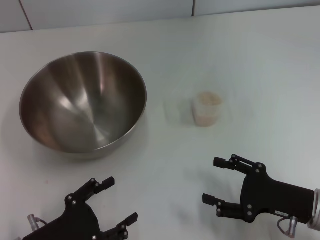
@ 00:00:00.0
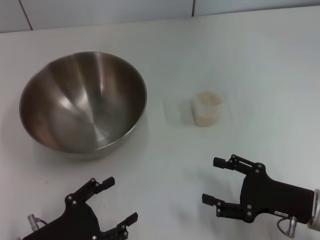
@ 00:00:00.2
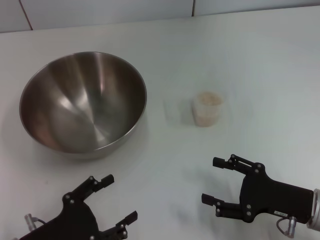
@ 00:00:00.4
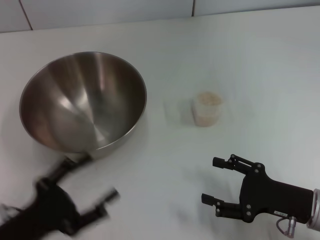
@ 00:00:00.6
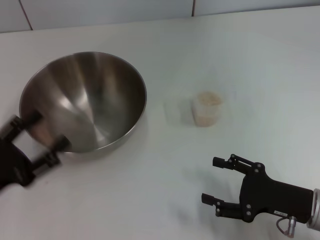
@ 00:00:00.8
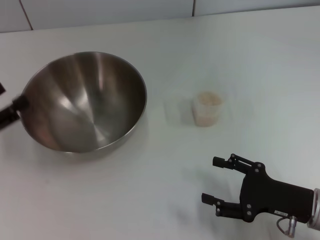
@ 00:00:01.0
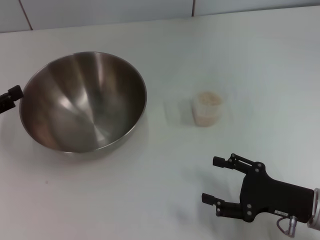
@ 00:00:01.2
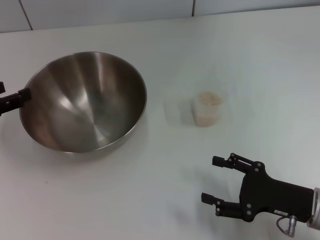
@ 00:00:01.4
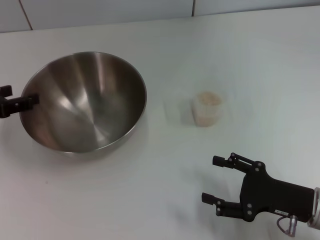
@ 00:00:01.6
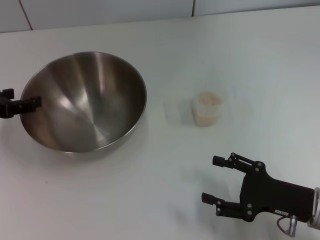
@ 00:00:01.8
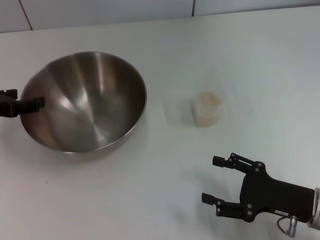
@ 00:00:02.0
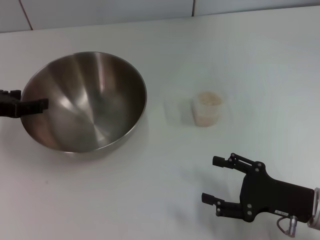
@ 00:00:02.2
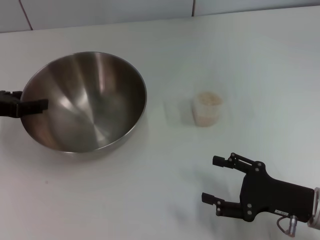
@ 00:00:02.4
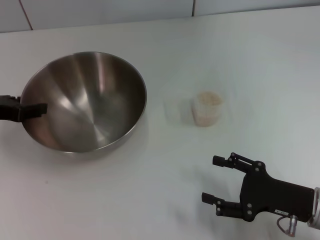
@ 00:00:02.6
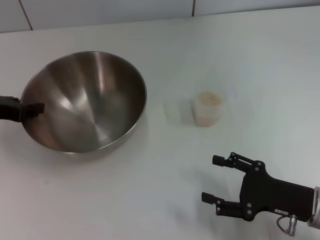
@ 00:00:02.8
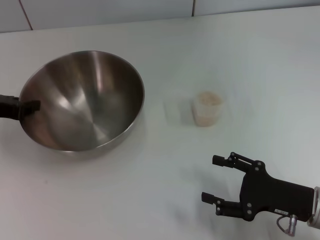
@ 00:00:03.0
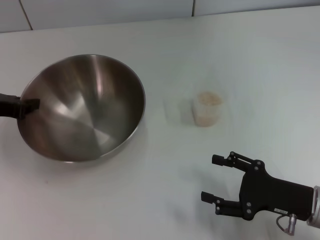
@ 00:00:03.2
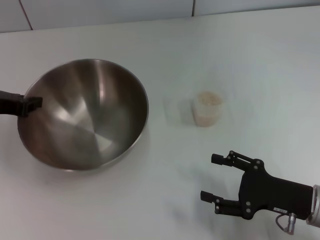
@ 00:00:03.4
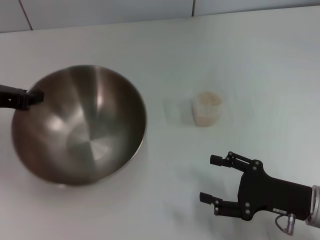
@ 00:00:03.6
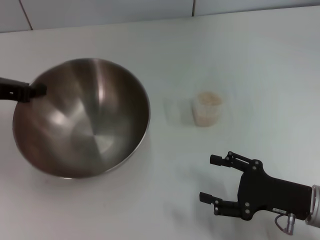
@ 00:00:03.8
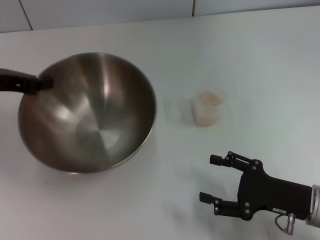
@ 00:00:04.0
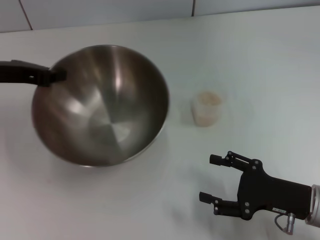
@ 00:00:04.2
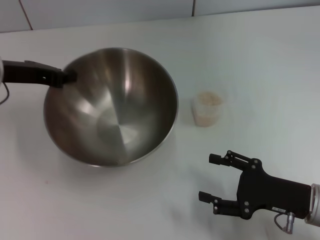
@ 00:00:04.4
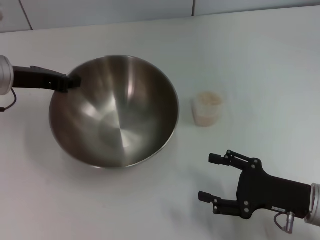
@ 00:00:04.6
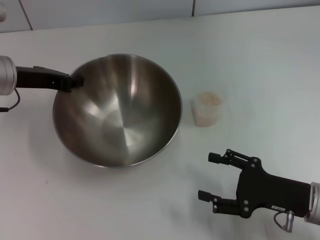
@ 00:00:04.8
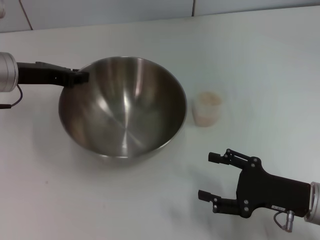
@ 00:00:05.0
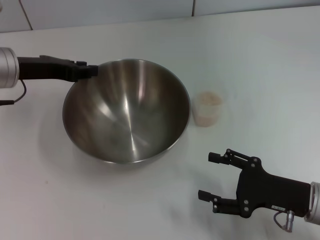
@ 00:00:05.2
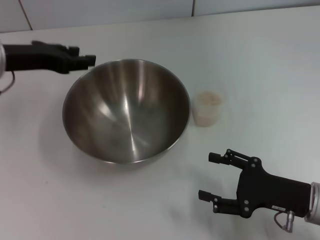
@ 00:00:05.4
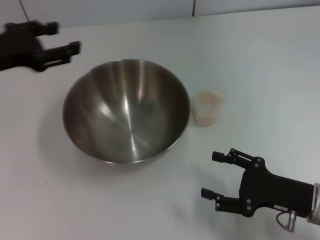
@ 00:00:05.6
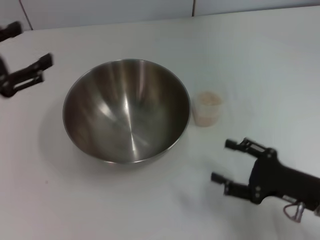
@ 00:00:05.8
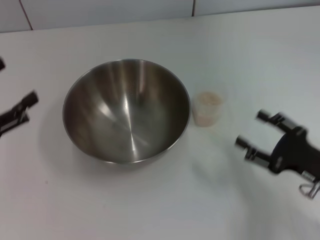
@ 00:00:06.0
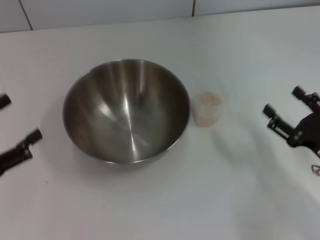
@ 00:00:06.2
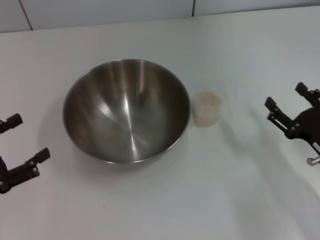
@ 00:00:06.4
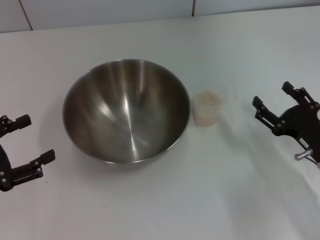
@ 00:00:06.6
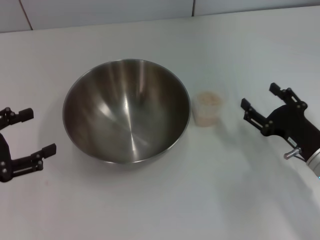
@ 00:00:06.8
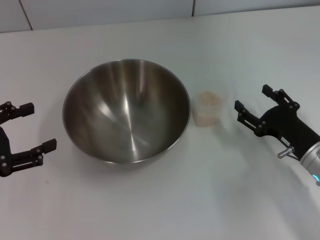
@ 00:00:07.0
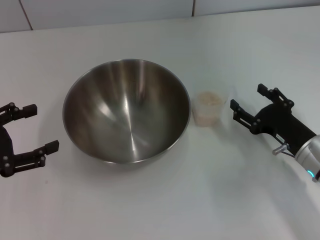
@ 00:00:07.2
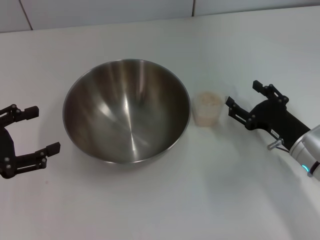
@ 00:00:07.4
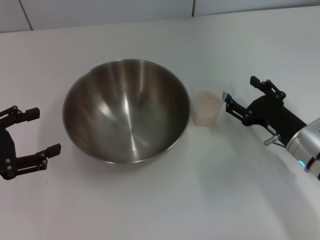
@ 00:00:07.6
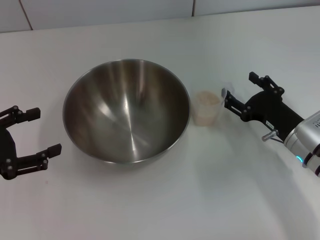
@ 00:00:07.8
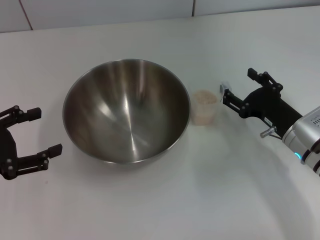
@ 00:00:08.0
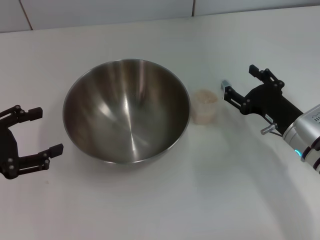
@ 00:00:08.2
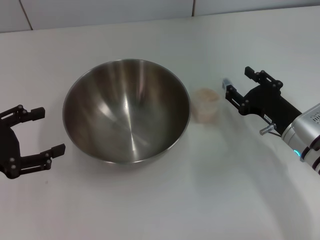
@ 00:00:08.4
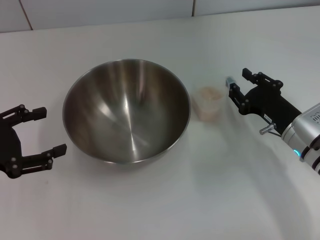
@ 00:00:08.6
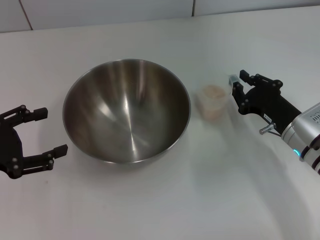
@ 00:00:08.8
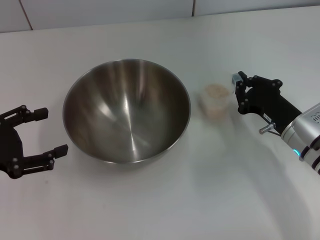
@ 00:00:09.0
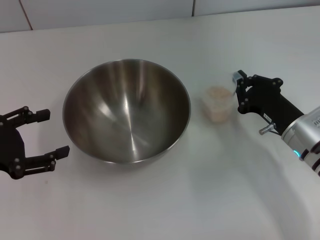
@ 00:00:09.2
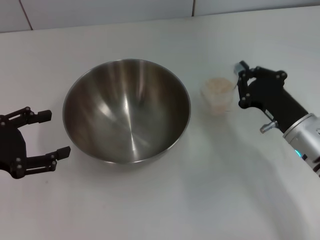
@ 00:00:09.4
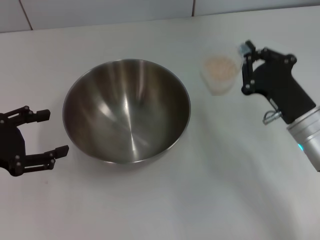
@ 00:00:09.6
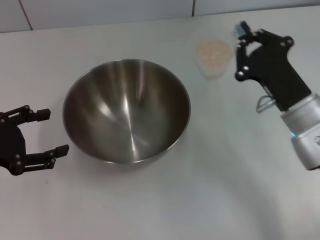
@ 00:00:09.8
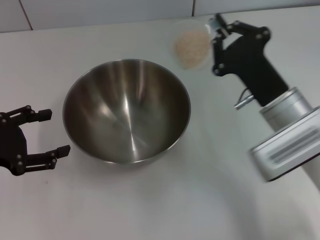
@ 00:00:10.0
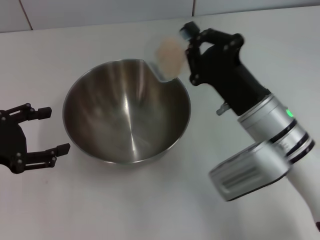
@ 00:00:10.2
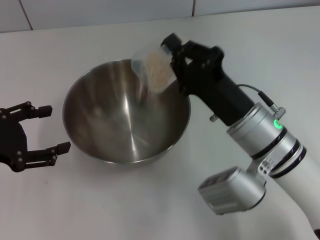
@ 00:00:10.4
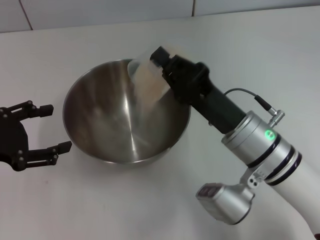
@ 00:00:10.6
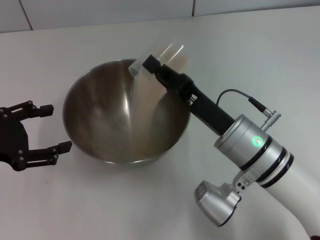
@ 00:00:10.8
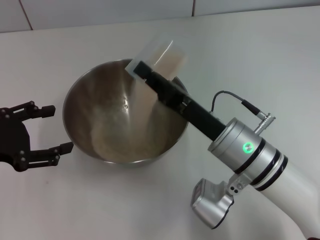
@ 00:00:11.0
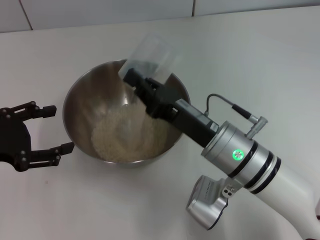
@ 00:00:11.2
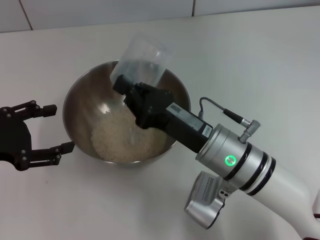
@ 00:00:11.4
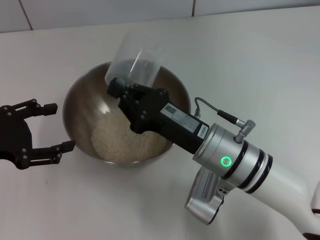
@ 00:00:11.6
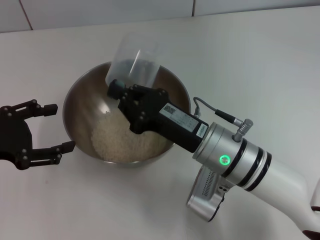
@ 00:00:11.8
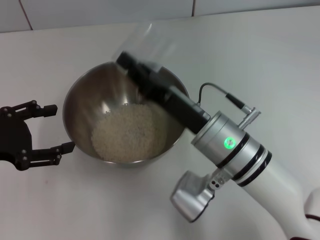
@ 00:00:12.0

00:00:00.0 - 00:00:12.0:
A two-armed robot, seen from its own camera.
Task of the whole recording: Place the bowl in the middle of the table with one hand and pour the rice from the grain cup into it with the other hand.
Step, 00:00:00.0 - 00:00:03.8: Pick up the bowl with the left gripper.
Step, 00:00:04.2 - 00:00:05.4: Place the bowl in the center of view with the left gripper.
Step, 00:00:05.6 - 00:00:09.6: Pick up the cup with rice in it with the right gripper.
00:00:00.0 - 00:00:01.6: The left gripper shifts approximately 20 cm forward, upward and to the left.
00:00:01.6 - 00:00:03.0: The left gripper closes its fingers.
00:00:03.0 - 00:00:04.4: The left gripper heads to the right, covering approximately 5 cm, and closes its fingers.
00:00:04.4 - 00:00:06.0: The left gripper travels backward and to the left by roughly 15 cm, and opens up.
00:00:06.0 - 00:00:07.6: The right gripper shifts about 10 cm forward.
00:00:07.6 - 00:00:09.0: The right gripper closes up.
00:00:09.0 - 00:00:10.4: The right gripper moves to the left and upward, roughly 10 cm.
00:00:10.4 - 00:00:12.0: The right gripper ends up about 5 cm from where it was.

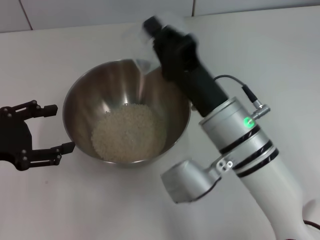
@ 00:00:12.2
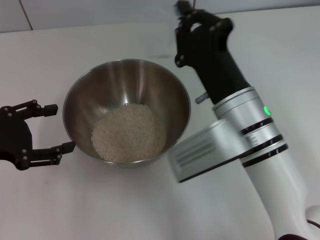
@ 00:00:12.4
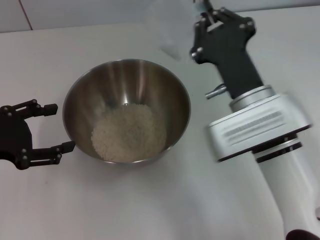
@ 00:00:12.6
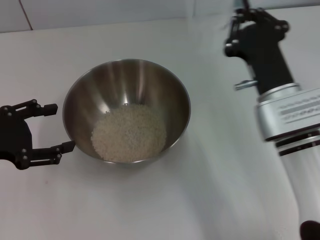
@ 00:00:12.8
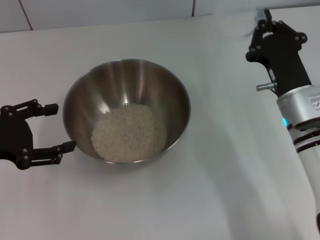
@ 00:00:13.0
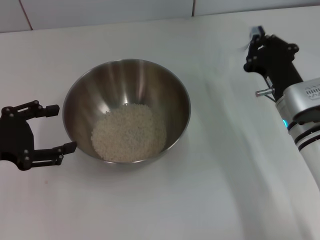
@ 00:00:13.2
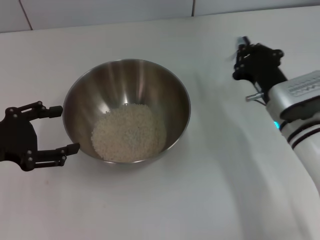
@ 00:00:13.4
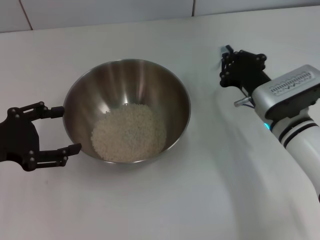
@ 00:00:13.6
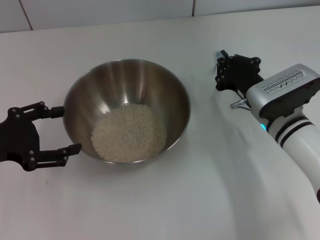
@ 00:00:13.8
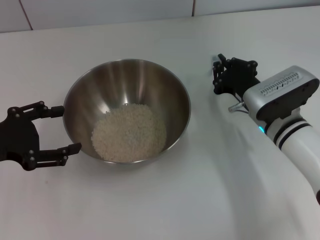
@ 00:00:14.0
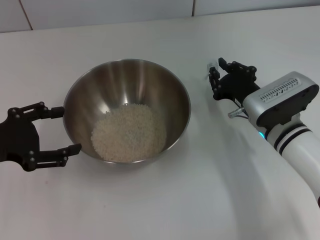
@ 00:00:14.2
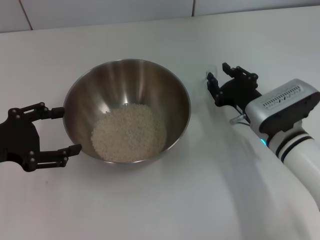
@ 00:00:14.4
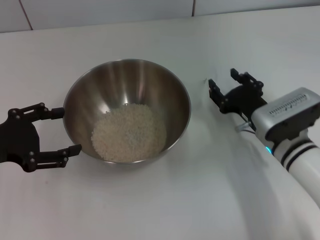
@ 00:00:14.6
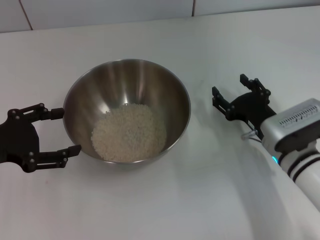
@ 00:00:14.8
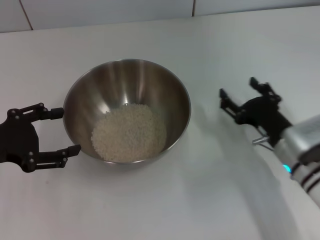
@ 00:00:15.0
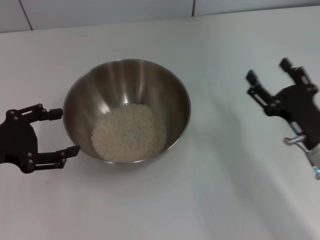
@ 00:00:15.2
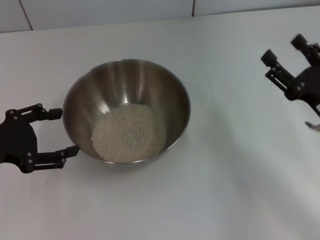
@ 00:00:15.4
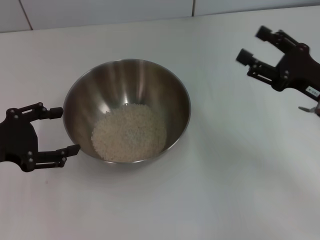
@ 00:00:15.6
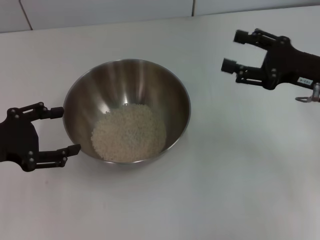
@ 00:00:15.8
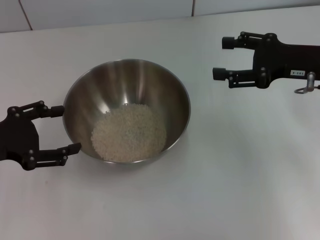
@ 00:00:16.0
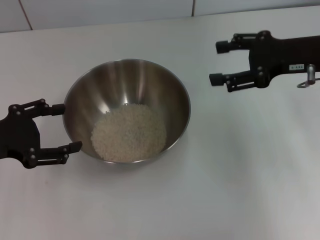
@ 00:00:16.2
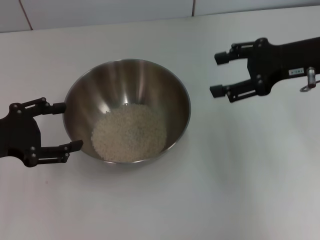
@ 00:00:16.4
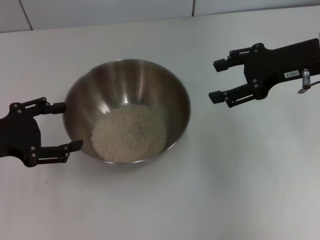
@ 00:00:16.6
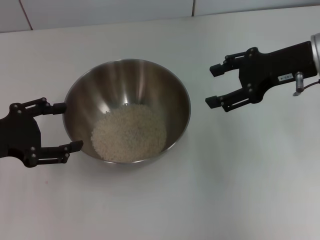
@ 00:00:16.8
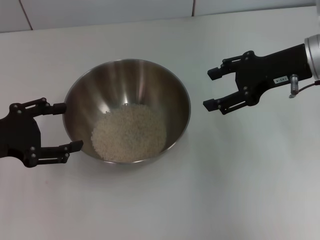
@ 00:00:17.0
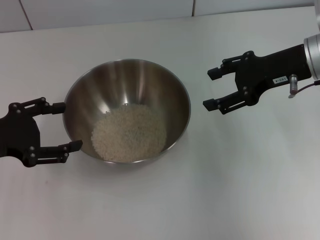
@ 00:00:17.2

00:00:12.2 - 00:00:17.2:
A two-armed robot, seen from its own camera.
Task of the whole recording: Place the bowl in the middle of the table with one hand and pour the rice from the grain cup into it with the other hand.
Step, 00:00:12.8 - 00:00:14.6: Place the cup on the table with the right gripper.
00:00:12.2 - 00:00:13.8: The right gripper shifts about 15 cm to the right, downward and forward.
00:00:13.8 - 00:00:15.6: The right gripper shifts approximately 10 cm to the right and upward, and opens its fingers.
00:00:15.6 - 00:00:17.2: The right gripper is displaced upward and forward by approximately 10 cm.
